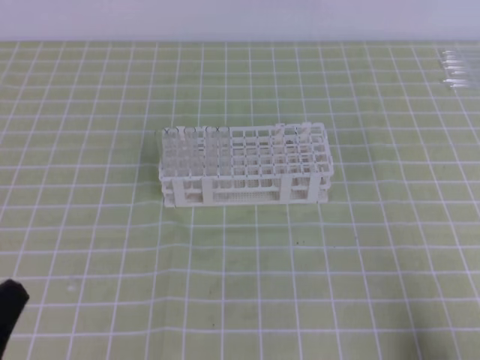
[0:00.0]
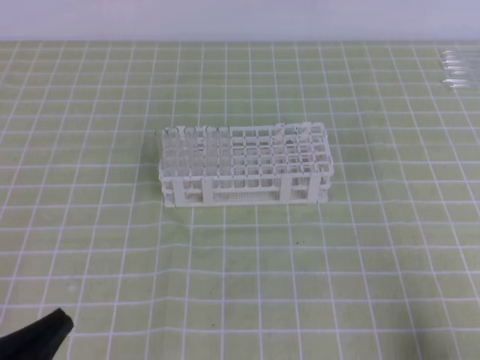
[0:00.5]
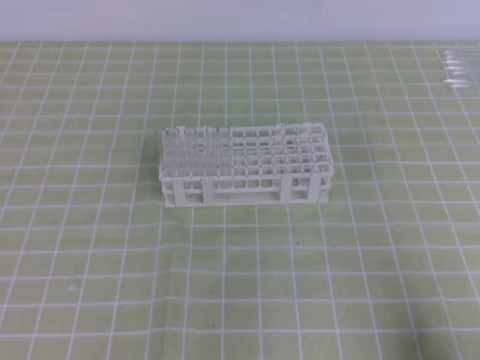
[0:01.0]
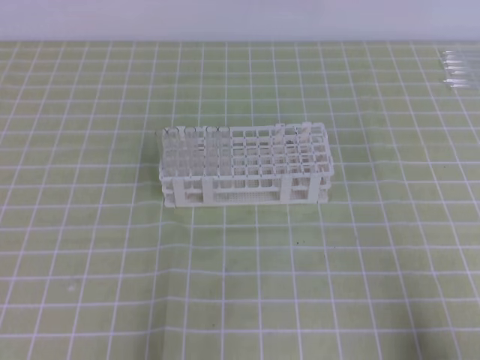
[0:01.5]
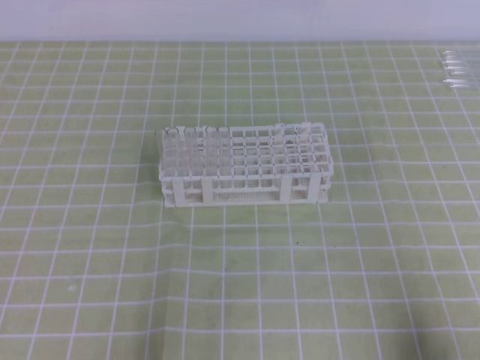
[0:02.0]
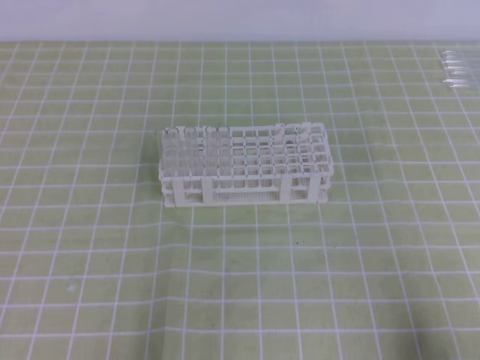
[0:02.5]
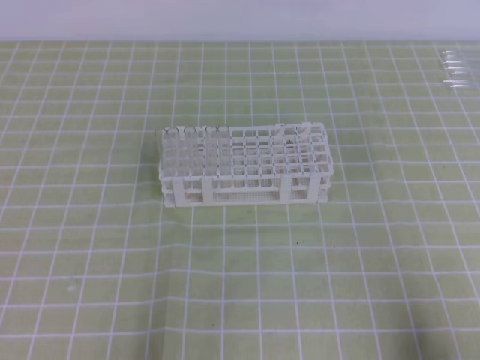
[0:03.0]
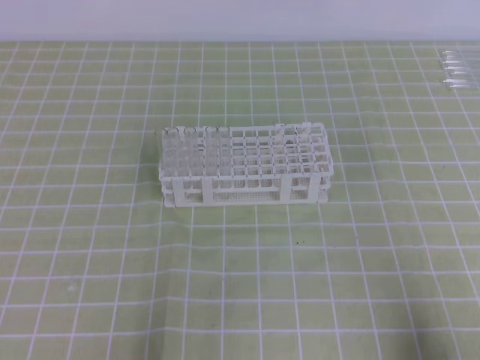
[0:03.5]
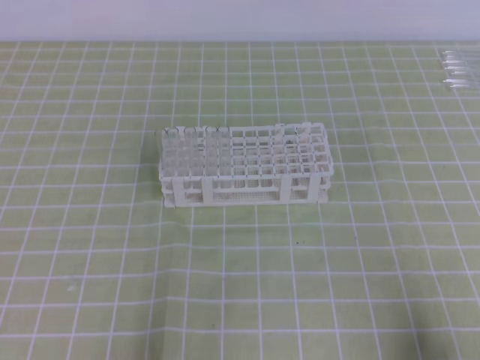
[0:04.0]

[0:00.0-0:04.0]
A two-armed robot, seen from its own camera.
0:00.0 to 0:02.0: The left gripper shifts about 5 cm downward.
0:02.0 to 0:04.0: Both grippers stay put.
